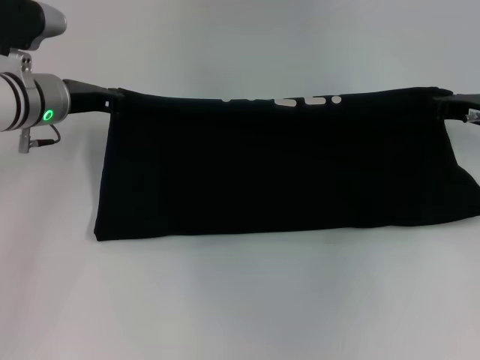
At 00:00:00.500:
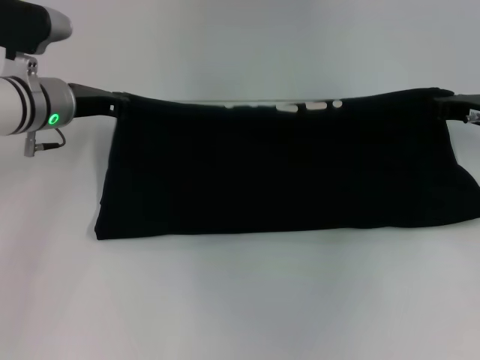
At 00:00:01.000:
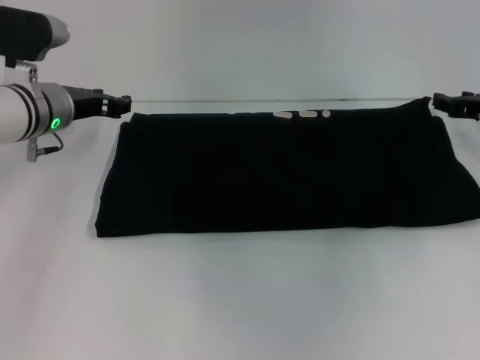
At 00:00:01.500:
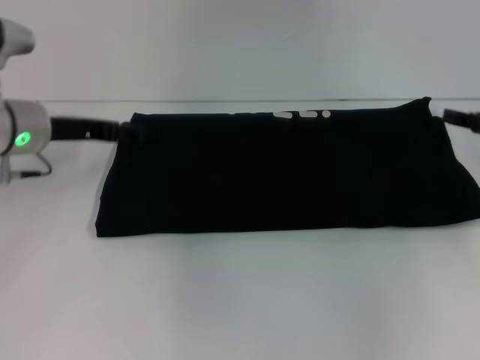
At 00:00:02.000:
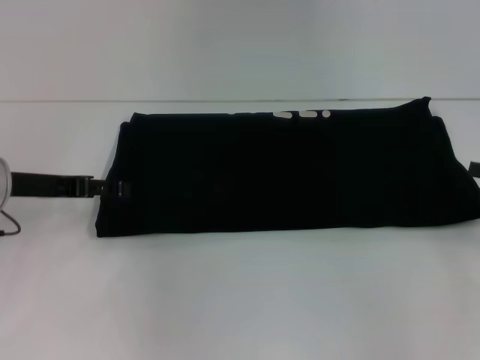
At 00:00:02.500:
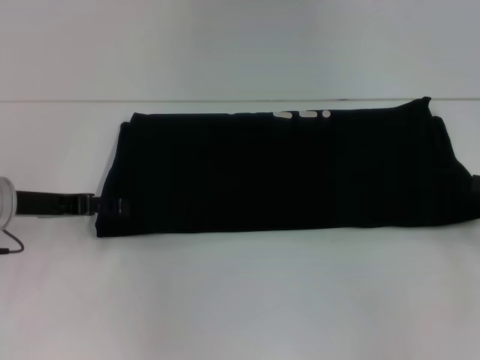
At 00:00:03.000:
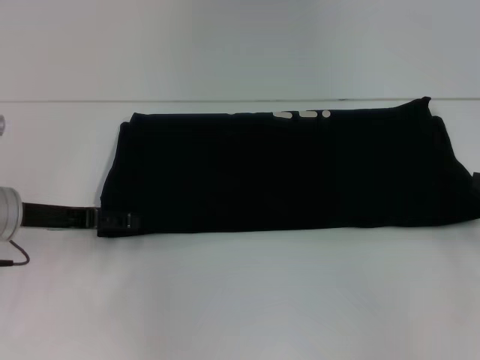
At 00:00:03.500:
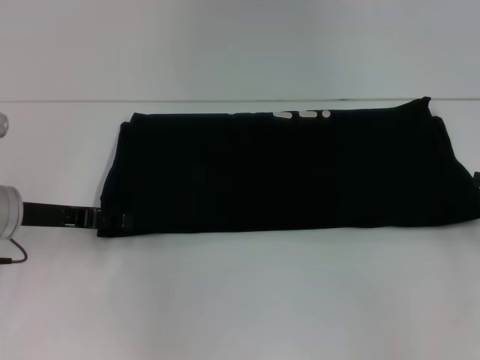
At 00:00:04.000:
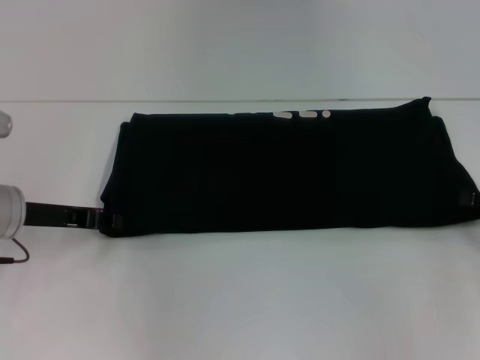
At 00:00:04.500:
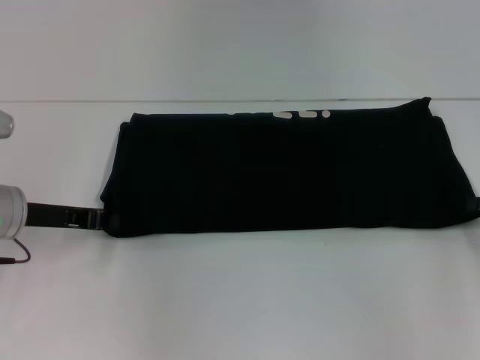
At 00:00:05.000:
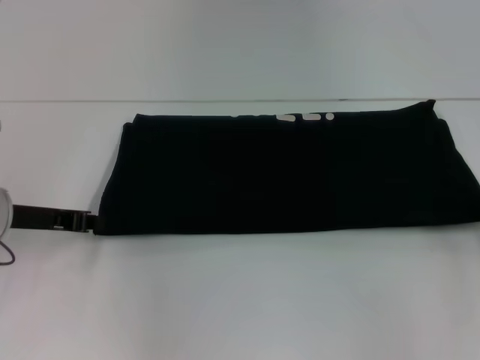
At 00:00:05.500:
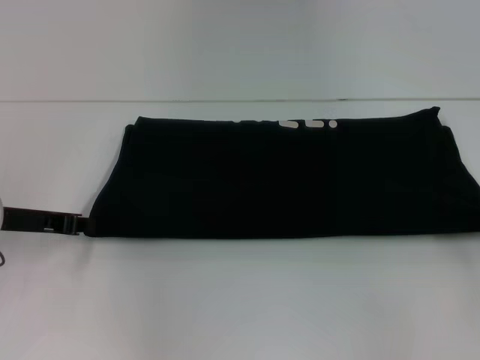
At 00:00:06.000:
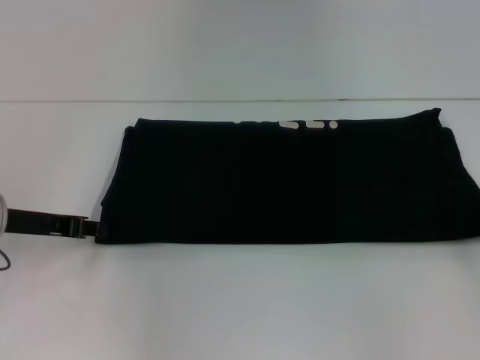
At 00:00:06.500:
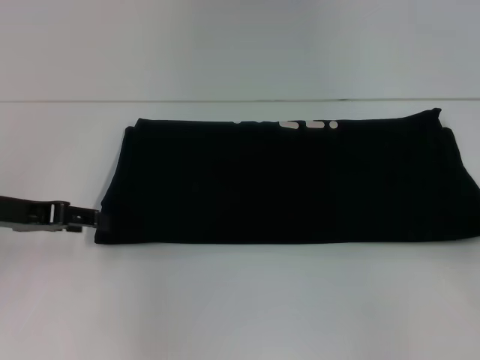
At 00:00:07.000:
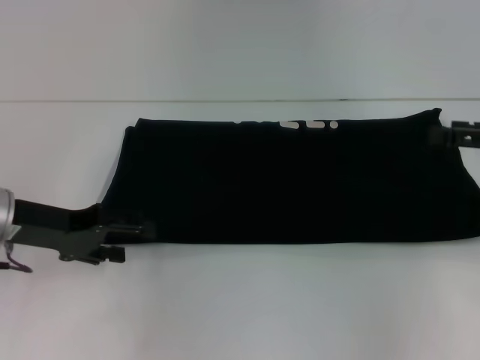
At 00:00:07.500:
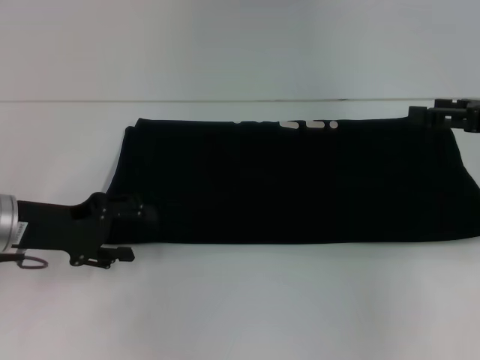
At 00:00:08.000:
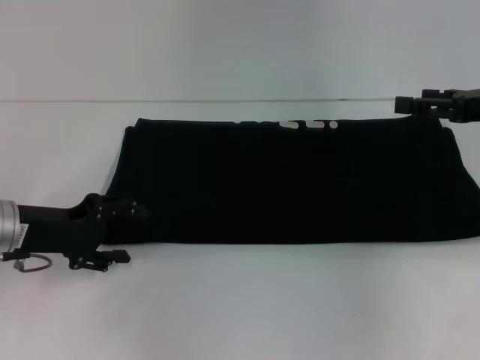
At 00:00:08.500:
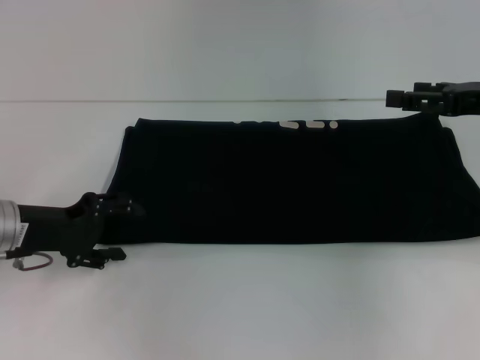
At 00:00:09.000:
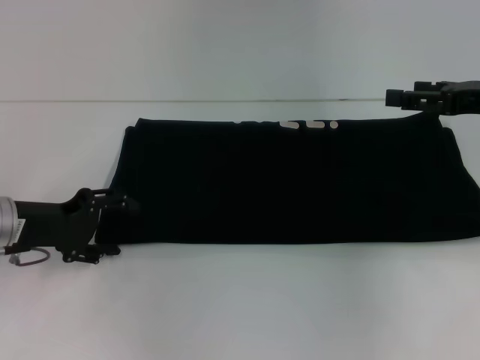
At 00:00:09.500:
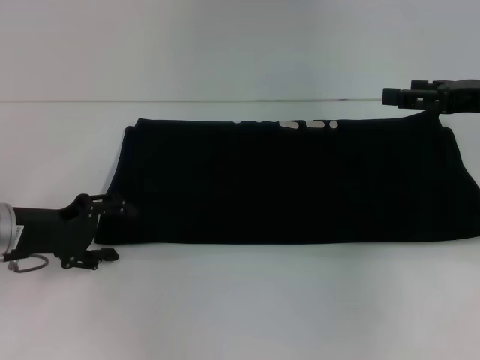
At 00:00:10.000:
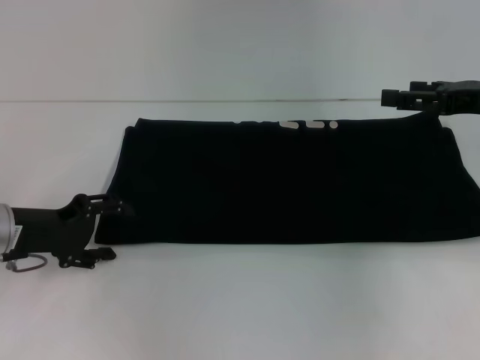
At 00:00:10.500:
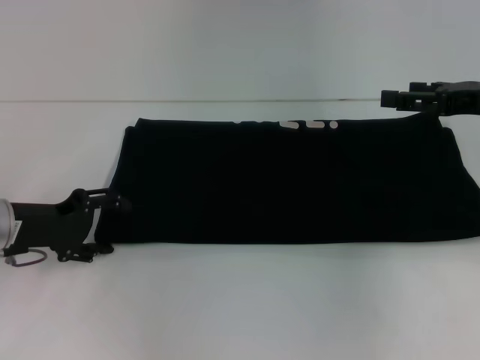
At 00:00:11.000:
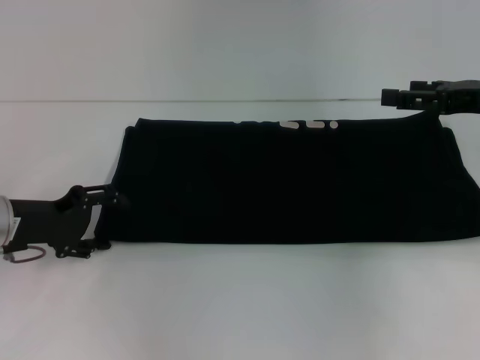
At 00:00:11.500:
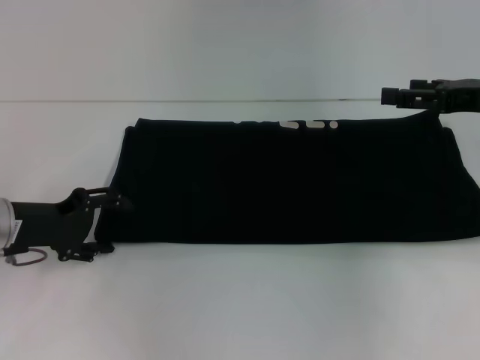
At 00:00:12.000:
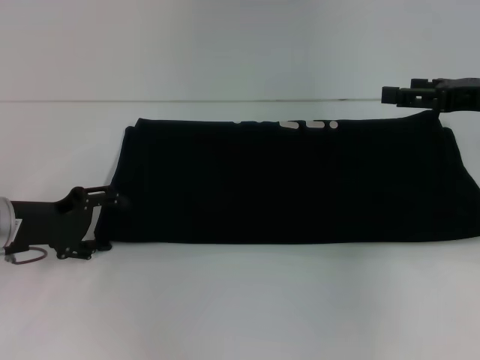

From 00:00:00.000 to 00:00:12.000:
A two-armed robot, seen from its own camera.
From 00:00:00.000 to 00:00:02.000: The left gripper shifts approximately 10 cm backward and to the left, and opens its fingers; the right gripper heads backward and to the right, covering some 15 cm, and opens.
From 00:00:02.000 to 00:00:04.000: The left gripper closes.
From 00:00:04.000 to 00:00:06.000: The right gripper closes up.
From 00:00:06.000 to 00:00:08.000: The left gripper opens up. Meanwhile the right gripper travels to the left, forward and upward by roughly 15 cm, and opens its fingers.
From 00:00:08.000 to 00:00:10.000: The grippers make only small movements.
From 00:00:10.000 to 00:00:12.000: Neither gripper changes place.

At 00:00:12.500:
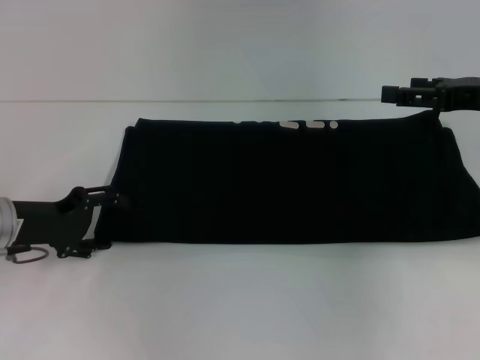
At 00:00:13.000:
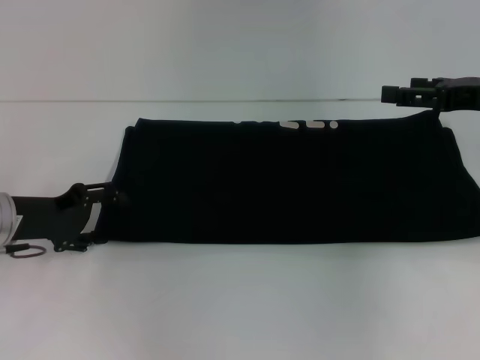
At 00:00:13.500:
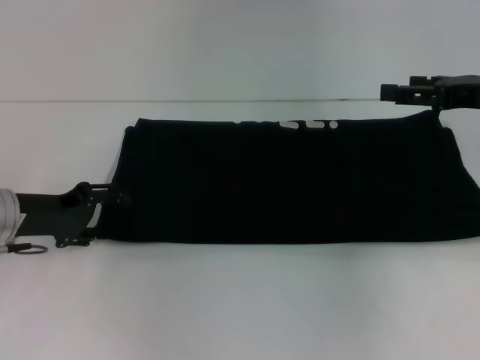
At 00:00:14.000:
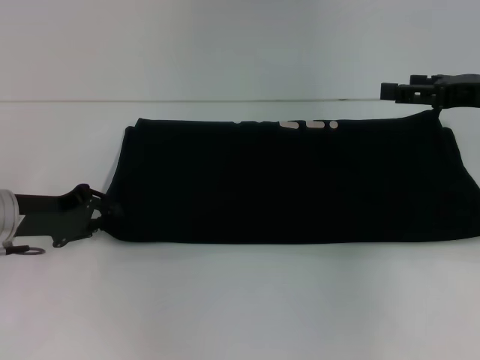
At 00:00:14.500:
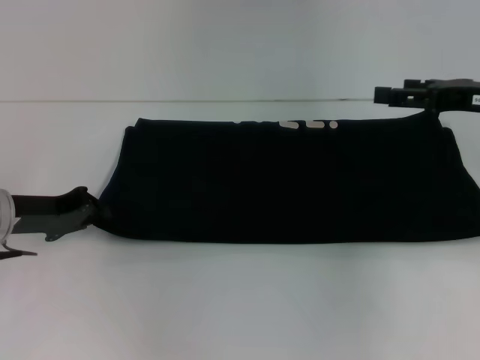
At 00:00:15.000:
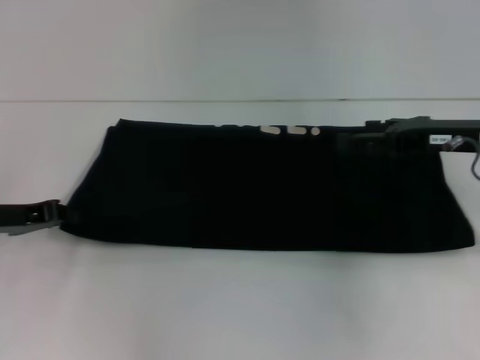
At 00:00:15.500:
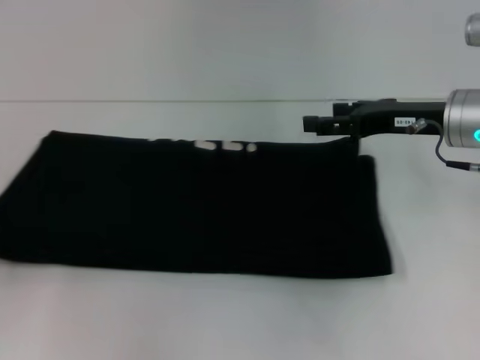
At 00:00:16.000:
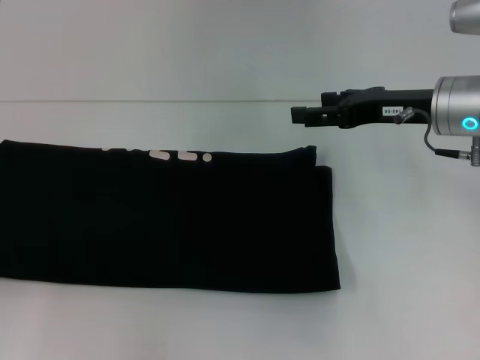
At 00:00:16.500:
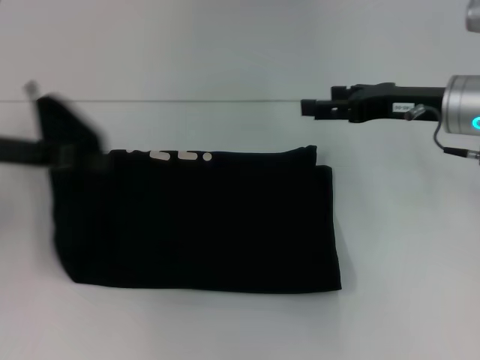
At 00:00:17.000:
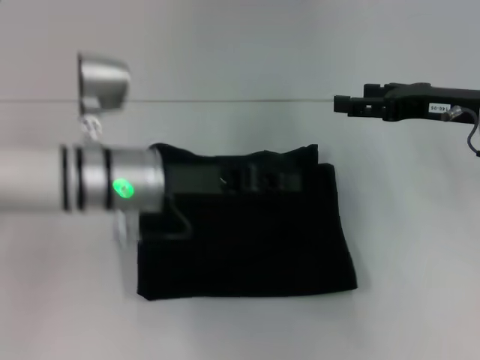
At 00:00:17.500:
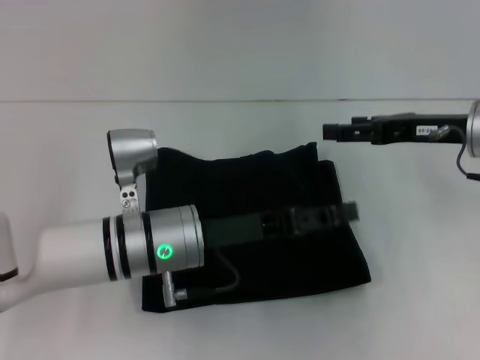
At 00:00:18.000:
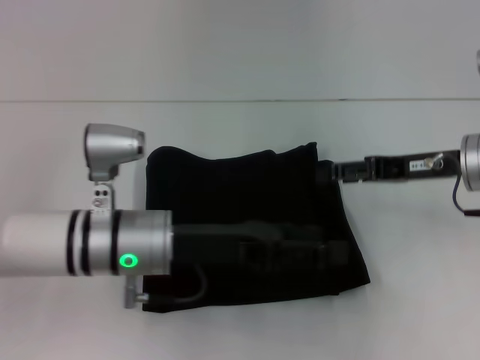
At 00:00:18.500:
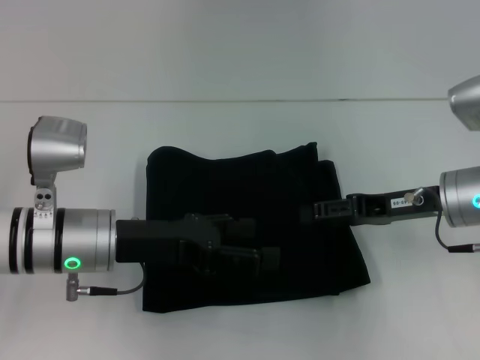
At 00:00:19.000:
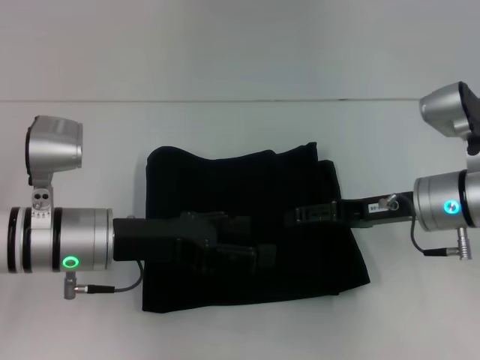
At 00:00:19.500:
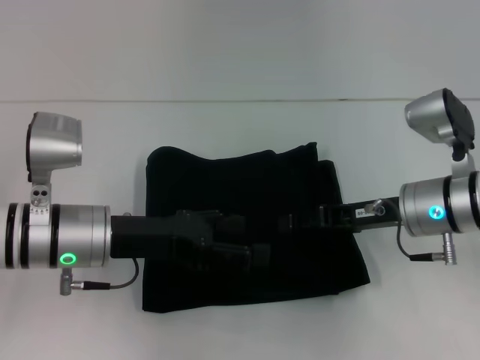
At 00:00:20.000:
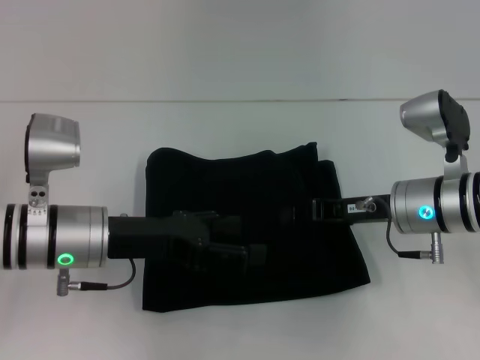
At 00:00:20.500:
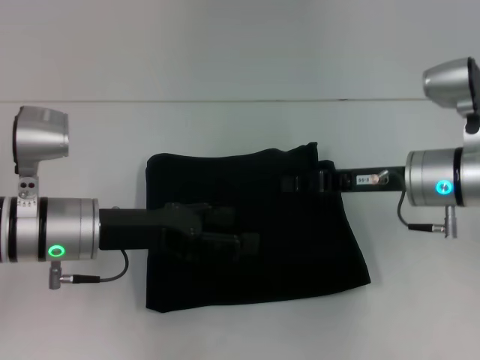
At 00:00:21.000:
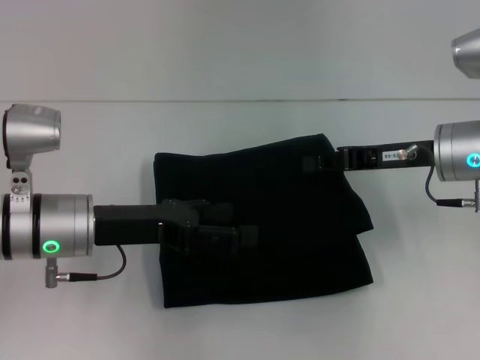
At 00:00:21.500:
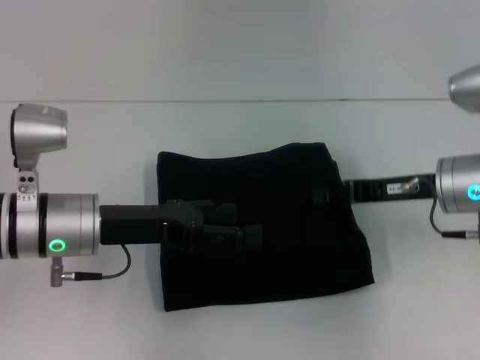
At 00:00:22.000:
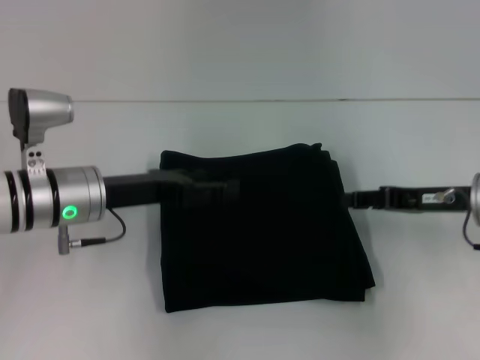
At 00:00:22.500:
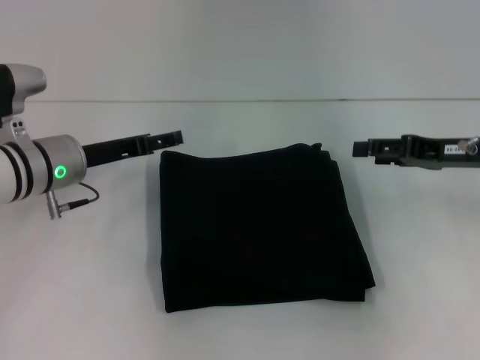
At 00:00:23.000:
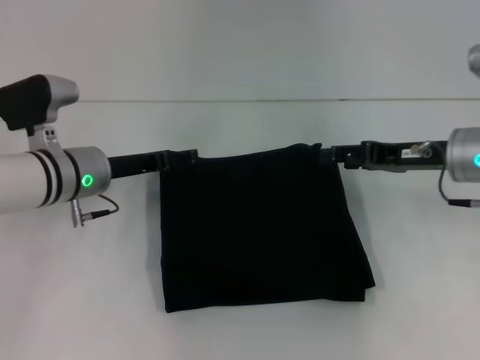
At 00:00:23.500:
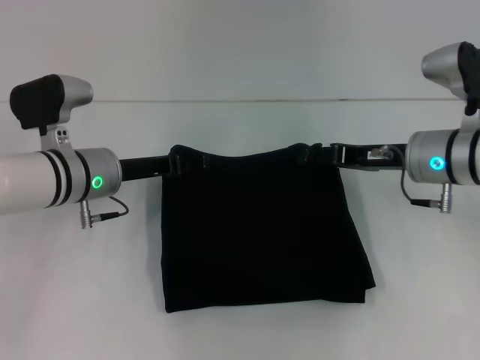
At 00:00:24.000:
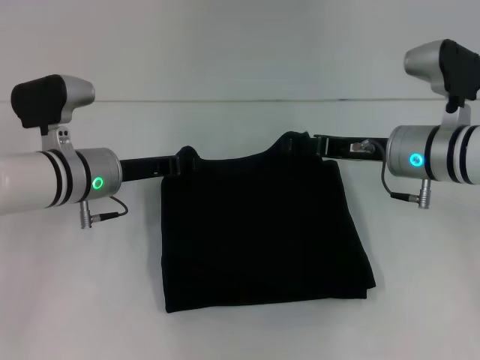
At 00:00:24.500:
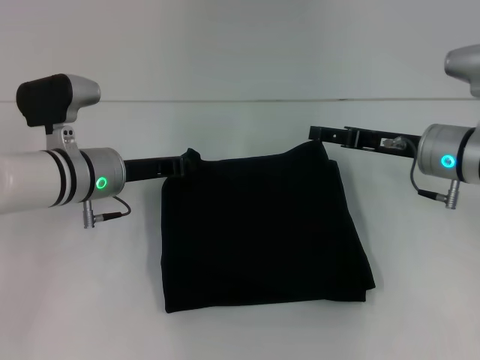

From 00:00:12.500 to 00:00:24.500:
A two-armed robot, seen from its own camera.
Step, from 00:00:12.500 to 00:00:18.500: Fold the clothes with your left hand.
From 00:00:12.500 to 00:00:14.500: The left gripper closes up.
From 00:00:14.500 to 00:00:16.500: The left gripper shifts some 10 cm upward, and travels to the left and back again, some 15 cm each way. Meanwhile the right gripper travels to the left by approximately 5 cm.
From 00:00:16.500 to 00:00:18.500: The right gripper travels downward by roughly 5 cm; the left gripper shifts some 15 cm to the right and downward, and opens its fingers.
From 00:00:18.500 to 00:00:20.500: The right gripper closes its fingers.
From 00:00:20.500 to 00:00:22.500: The left gripper goes roughly 5 cm forward, while the right gripper travels to the right by some 10 cm, and opens.
From 00:00:22.500 to 00:00:24.500: The right gripper travels to the left by about 5 cm; the left gripper closes.

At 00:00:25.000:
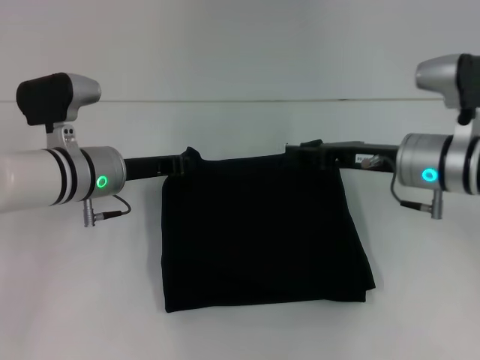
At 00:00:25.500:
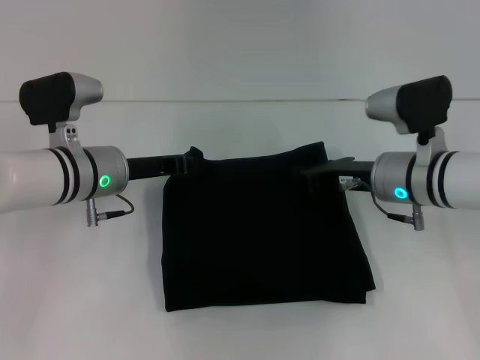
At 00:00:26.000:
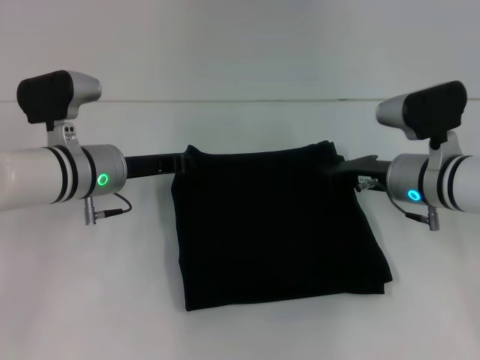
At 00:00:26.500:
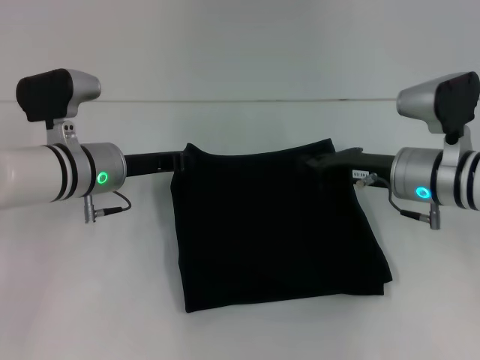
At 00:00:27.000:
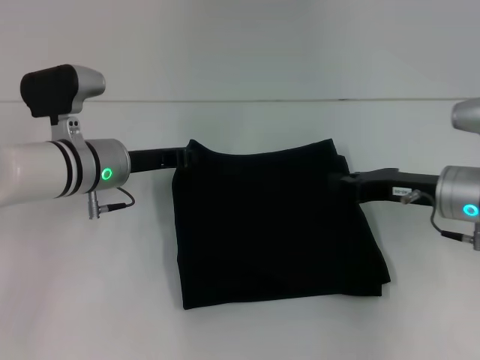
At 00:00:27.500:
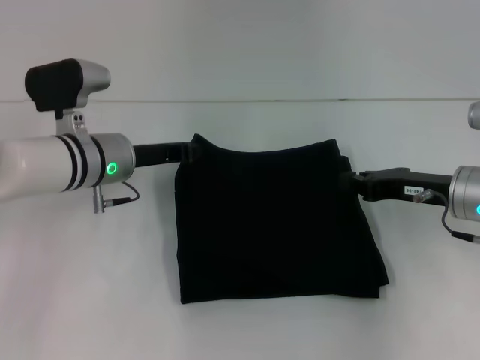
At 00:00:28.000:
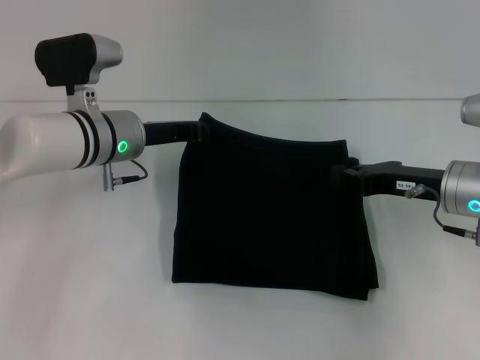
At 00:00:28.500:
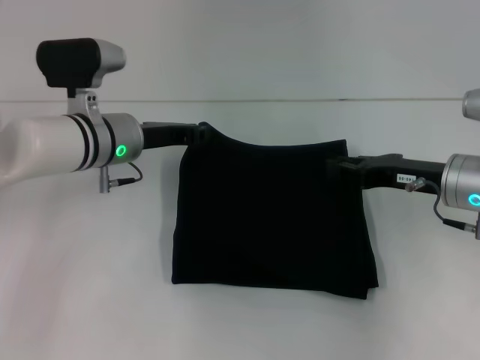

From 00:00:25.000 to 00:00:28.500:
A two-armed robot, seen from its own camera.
From 00:00:25.000 to 00:00:27.000: The right gripper shifts by roughly 5 cm, and closes.
From 00:00:27.000 to 00:00:28.500: The grippers move only a little.
